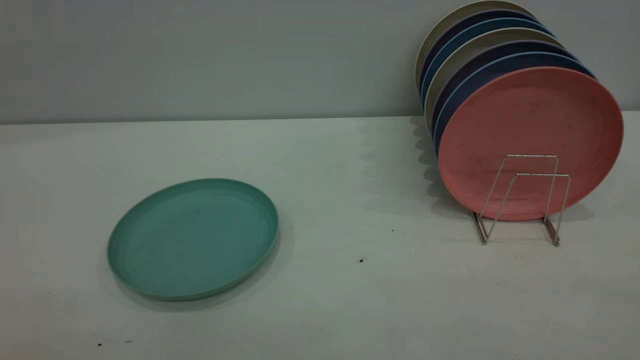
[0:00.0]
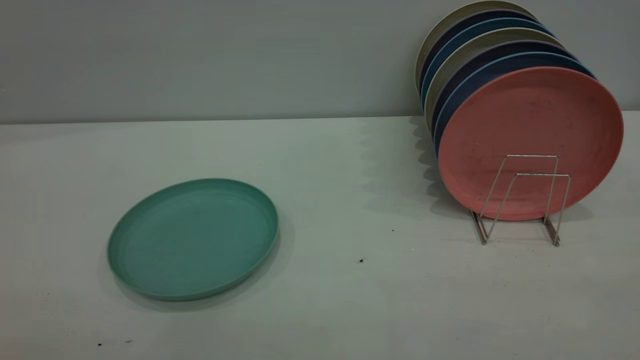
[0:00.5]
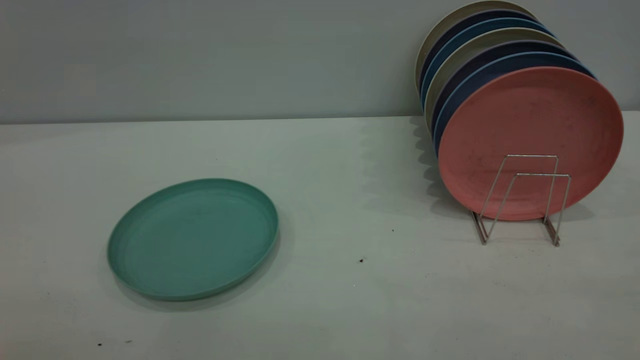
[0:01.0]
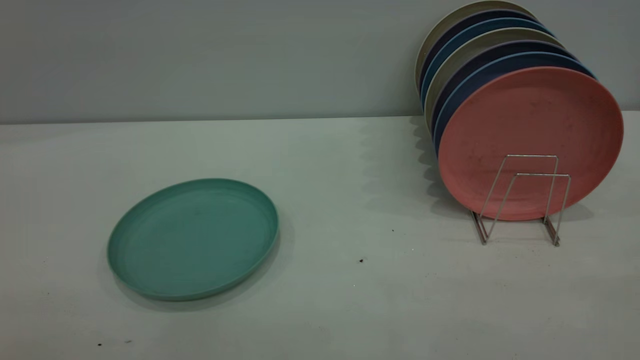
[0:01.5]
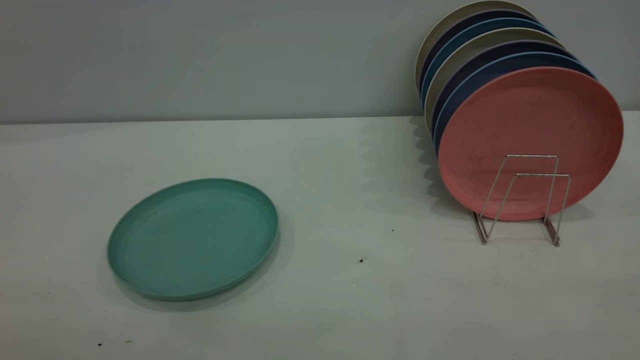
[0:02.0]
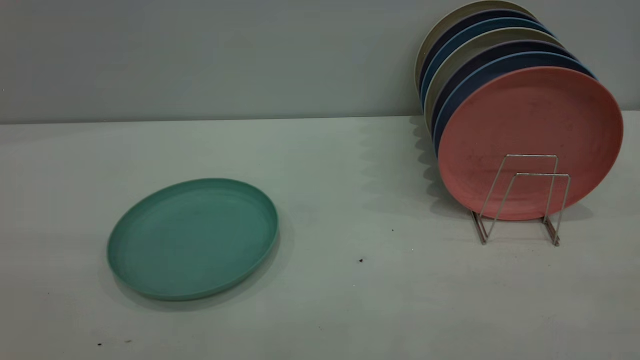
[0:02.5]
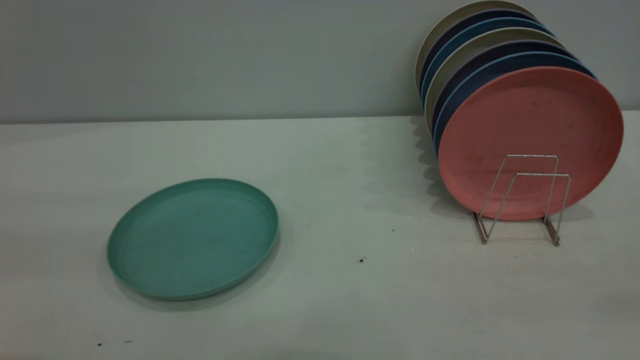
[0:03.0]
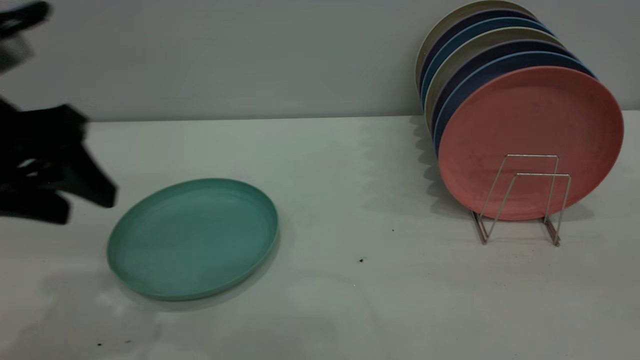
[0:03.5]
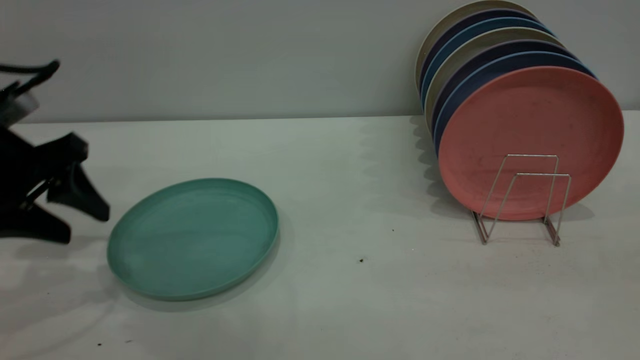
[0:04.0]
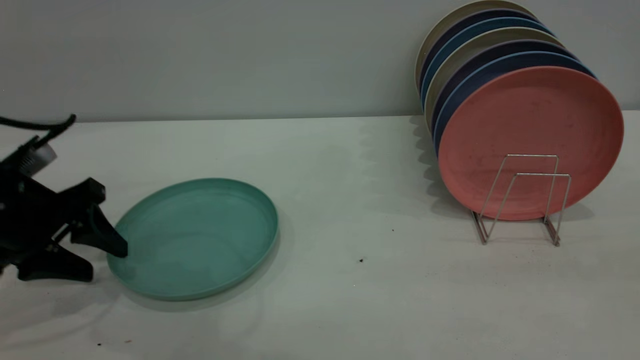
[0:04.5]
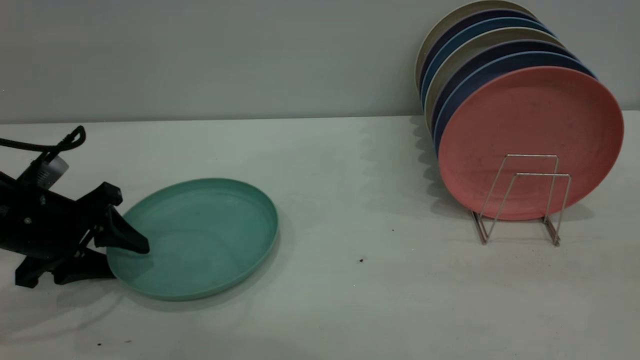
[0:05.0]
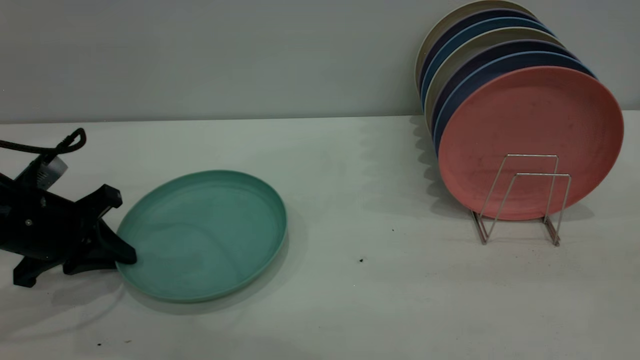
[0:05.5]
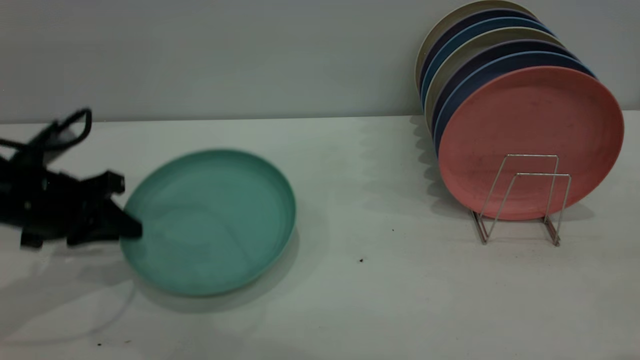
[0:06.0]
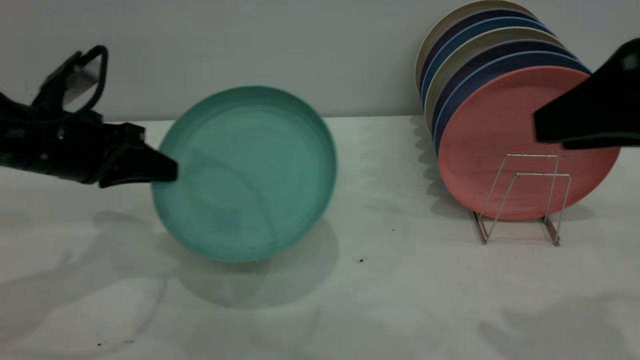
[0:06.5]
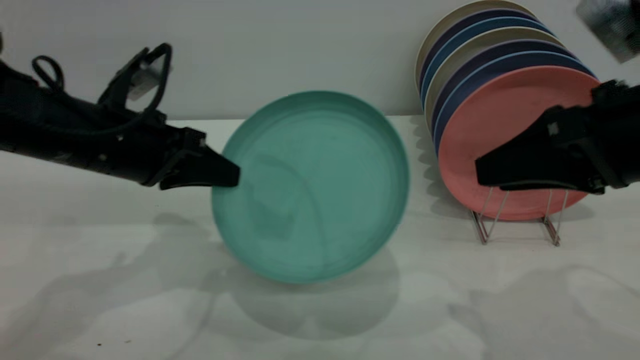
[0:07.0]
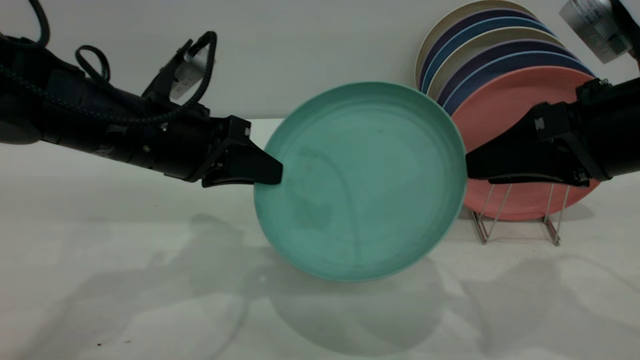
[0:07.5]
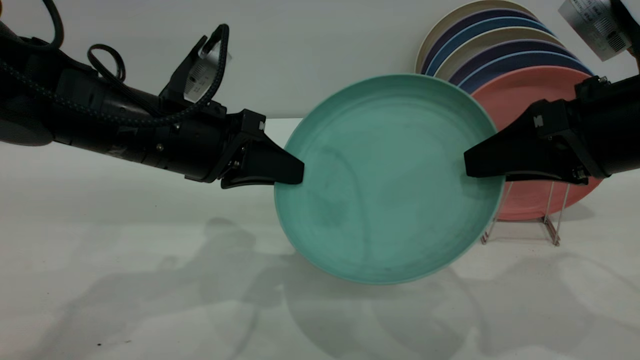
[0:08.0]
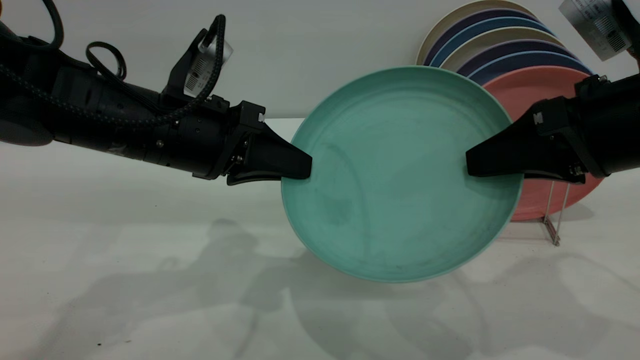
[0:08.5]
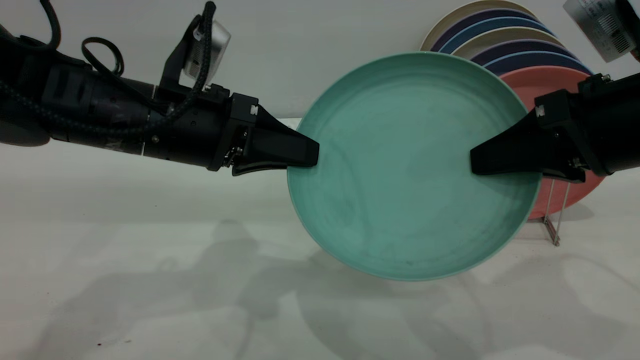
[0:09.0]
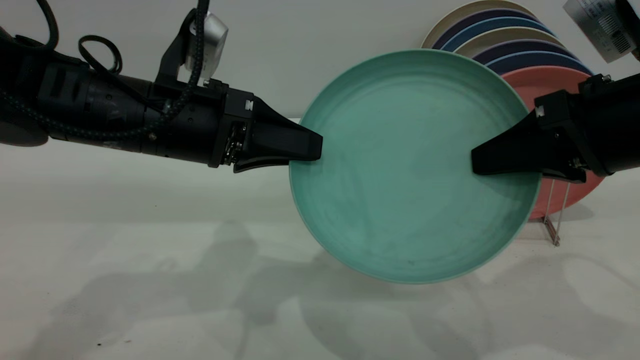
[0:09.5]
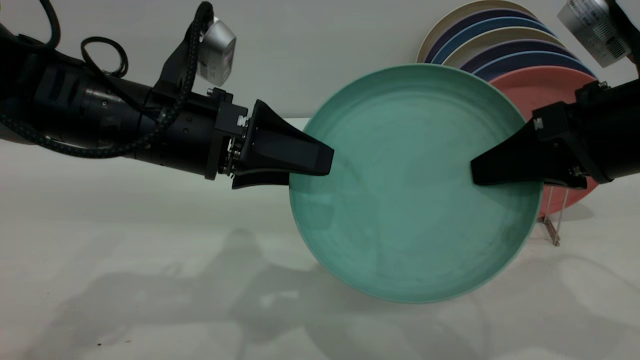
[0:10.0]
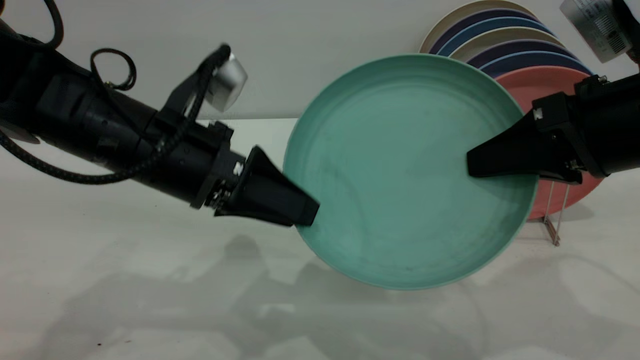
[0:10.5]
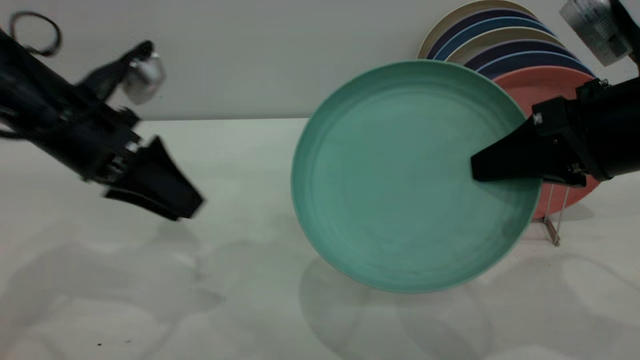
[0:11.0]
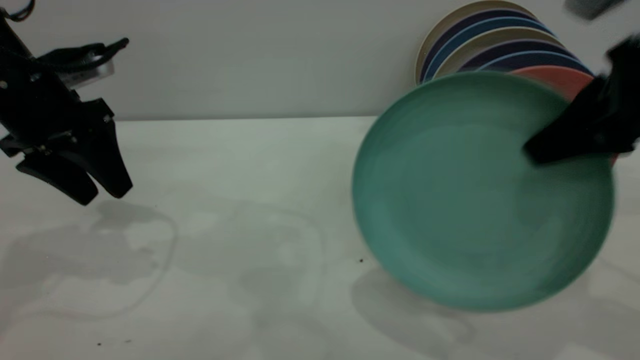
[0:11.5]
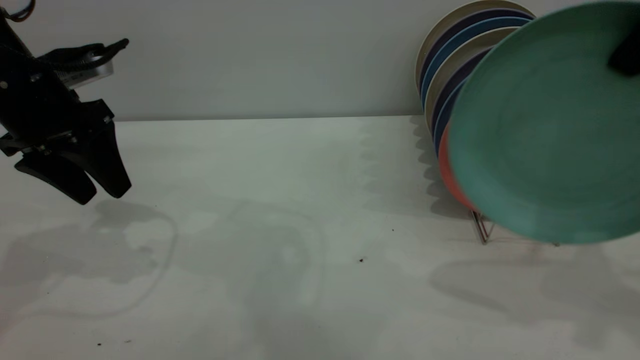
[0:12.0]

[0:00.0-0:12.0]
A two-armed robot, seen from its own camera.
Task of the whole recording: the left gripper grasp the green plate, the left gripper pass the green plate to the right gripper, and the right gripper place the green plate on the plate rack.
Step, 0:00.0 to 0:05.5: Pick up the plate with the left gripper.
Step, 0:06.5 to 0:10.5: Pass the plate from the left gripper to the right gripper.
0:02.0 to 0:04.0: The left gripper goes about 40 cm forward and downward.
0:04.0 to 0:06.0: The right gripper ends up about 5 cm from where it was. Meanwhile the left gripper travels downward by some 5 cm, and closes its fingers.
0:06.0 to 0:08.0: The left gripper heads to the right, covering about 15 cm, while the right gripper shifts about 15 cm downward and forward.
0:08.0 to 0:10.0: The left gripper opens its fingers; the right gripper closes.
0:10.0 to 0:12.0: The left gripper moves to the left and forward, approximately 15 cm. The right gripper moves upward, approximately 15 cm.

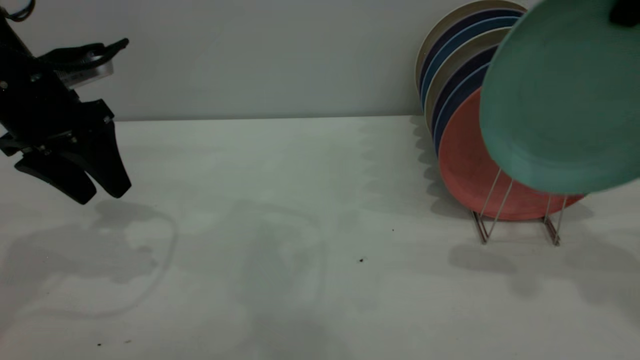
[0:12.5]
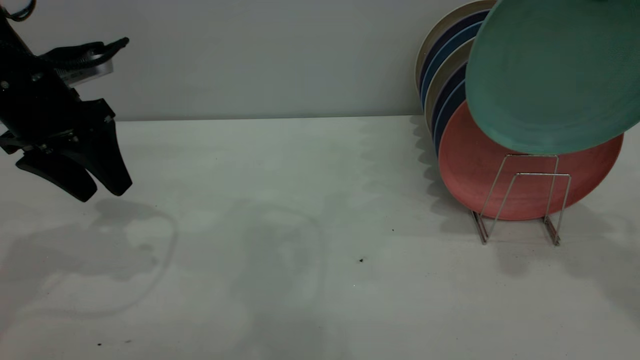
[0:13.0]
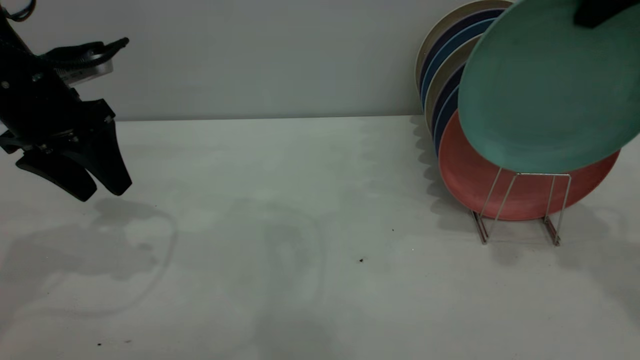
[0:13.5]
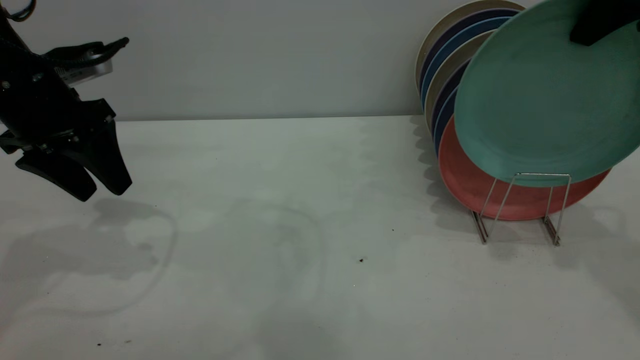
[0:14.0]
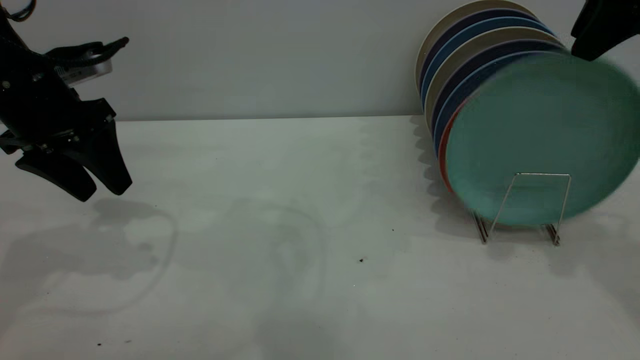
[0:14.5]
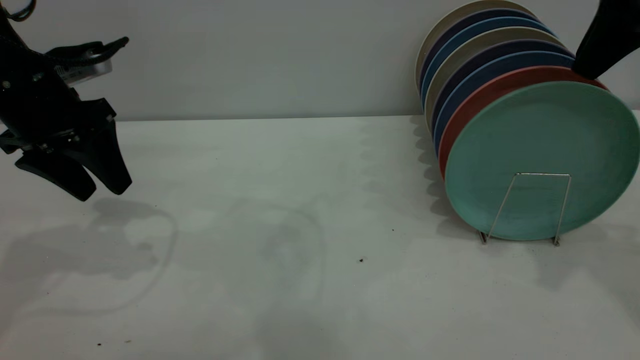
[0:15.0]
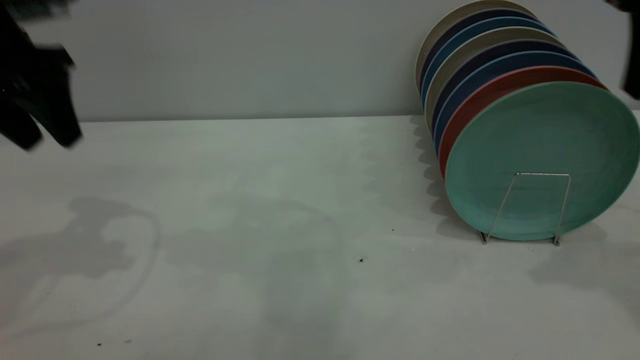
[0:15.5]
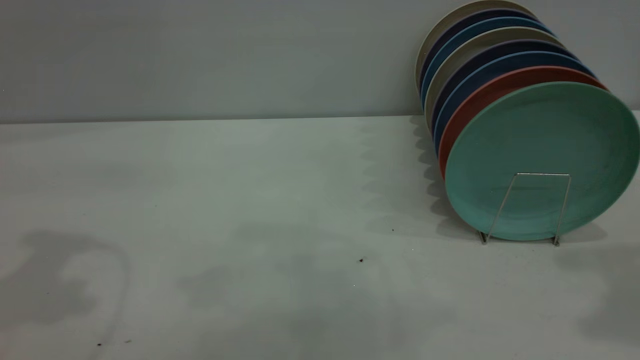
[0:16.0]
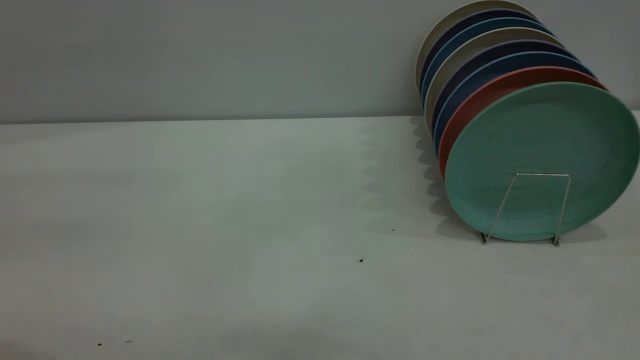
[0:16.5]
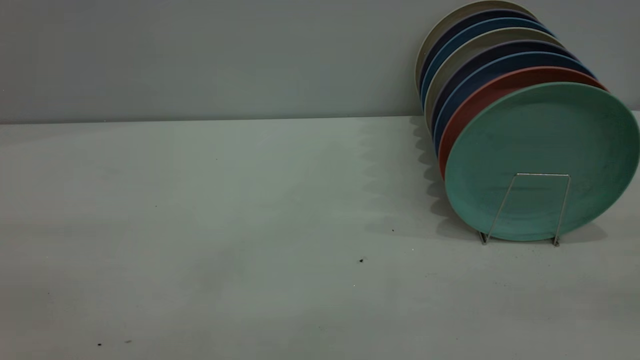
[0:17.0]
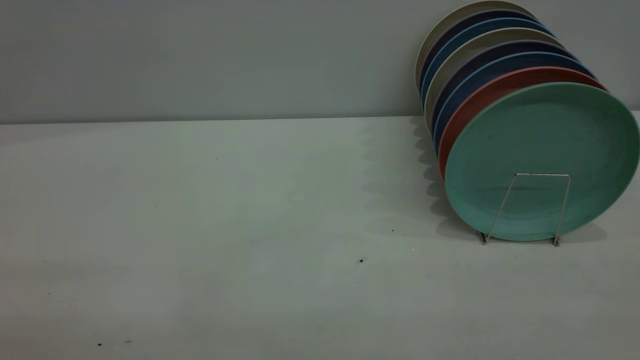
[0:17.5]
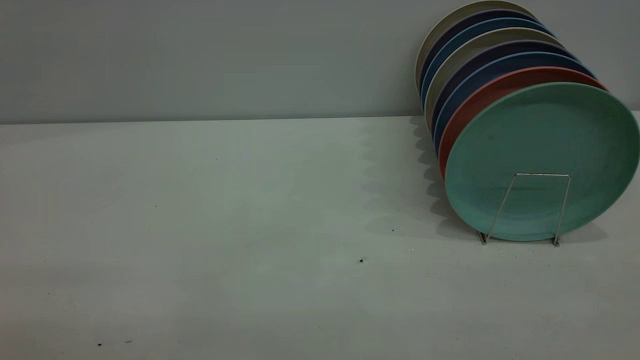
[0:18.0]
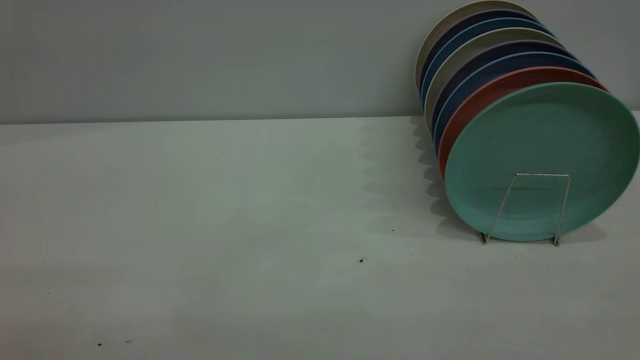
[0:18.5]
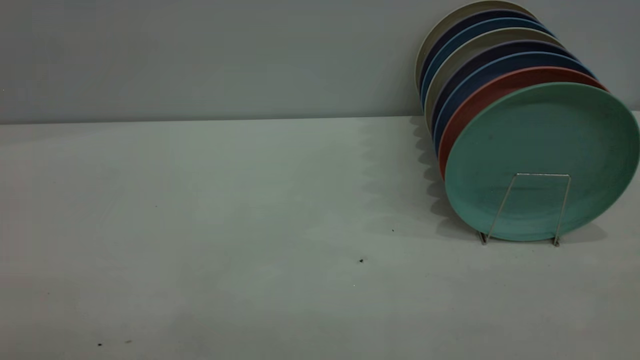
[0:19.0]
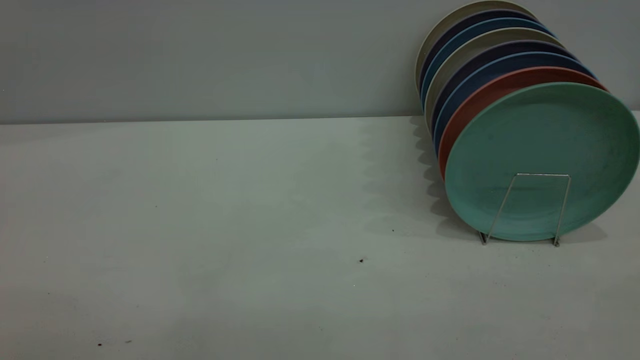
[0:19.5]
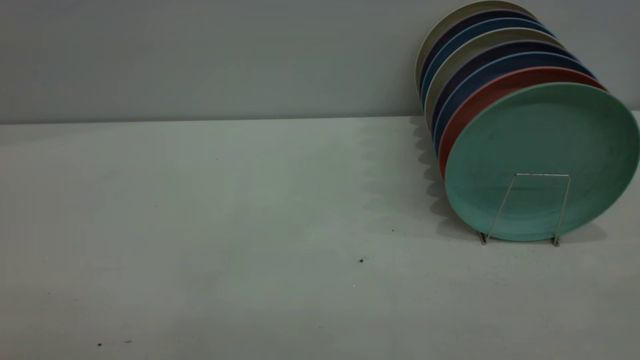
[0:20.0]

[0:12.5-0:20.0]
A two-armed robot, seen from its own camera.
Task of the whole recording: the left gripper grasp the green plate, the left gripper pass the green plate to the right gripper, and the right gripper place the green plate on the plate rack.
Step, 0:12.5 to 0:15.0: Place the plate on the shelf.
0:12.5 to 0:14.5: The right gripper moves about 5 cm, and opens up.
0:14.5 to 0:16.5: The right gripper heads backward, covering about 25 cm, while the left gripper is displaced backward and upward by about 25 cm.
